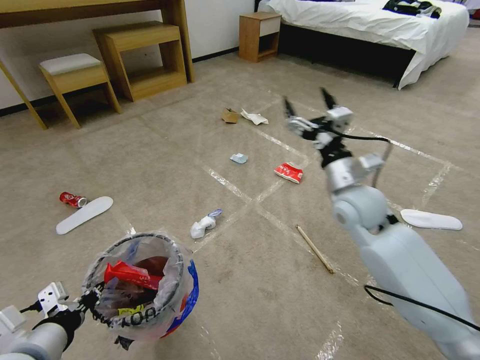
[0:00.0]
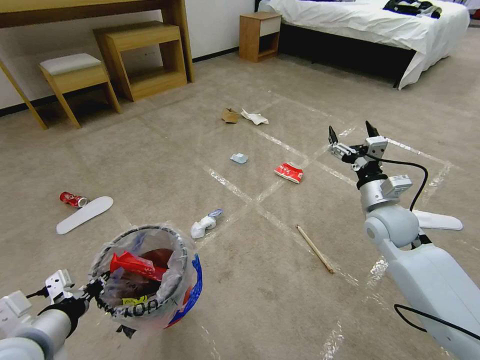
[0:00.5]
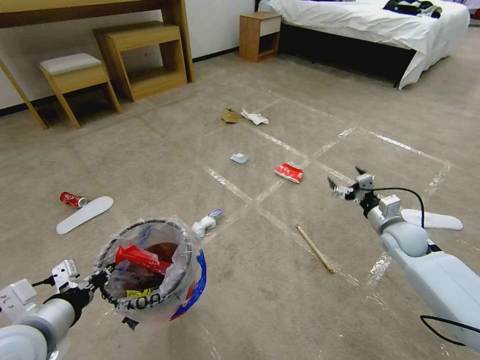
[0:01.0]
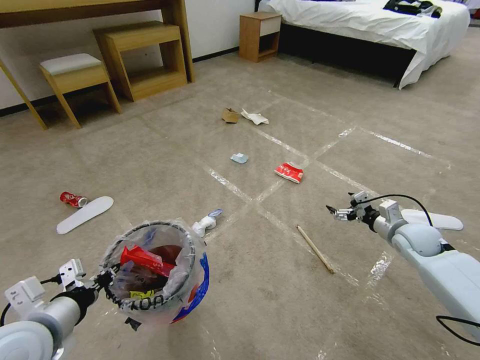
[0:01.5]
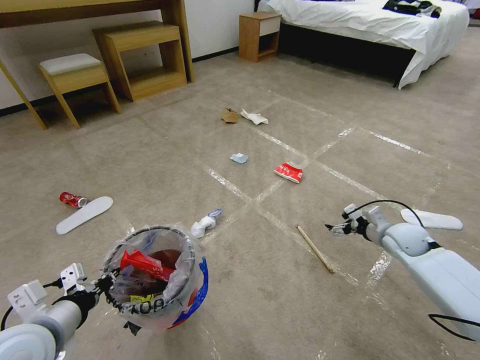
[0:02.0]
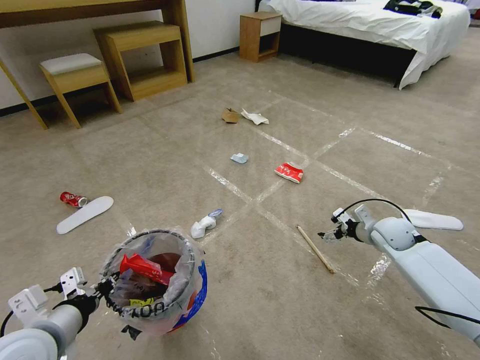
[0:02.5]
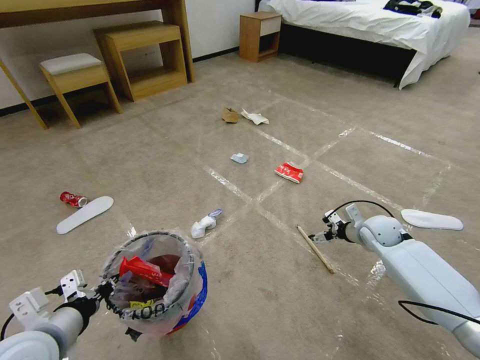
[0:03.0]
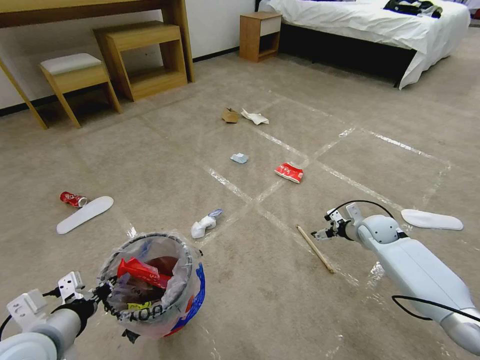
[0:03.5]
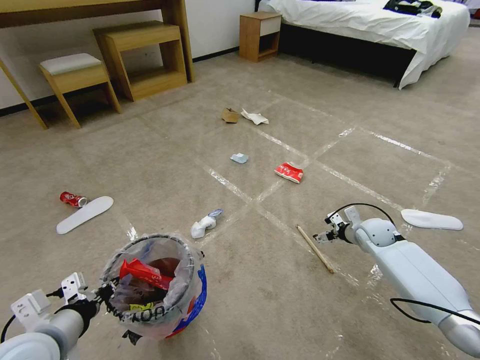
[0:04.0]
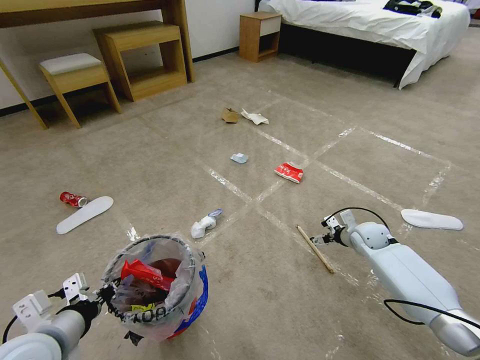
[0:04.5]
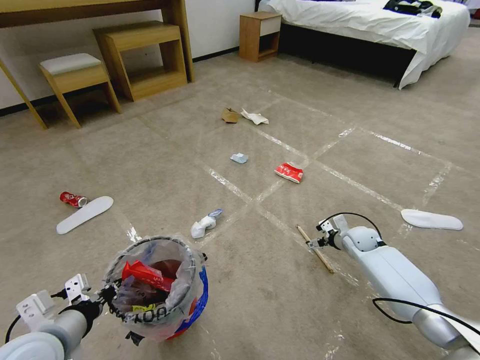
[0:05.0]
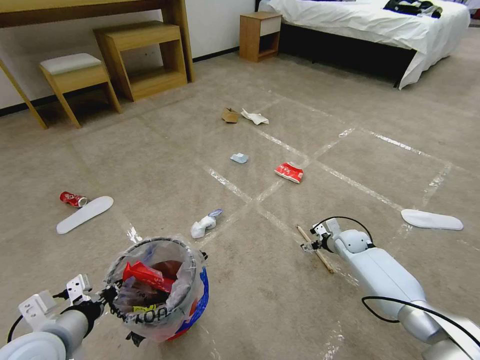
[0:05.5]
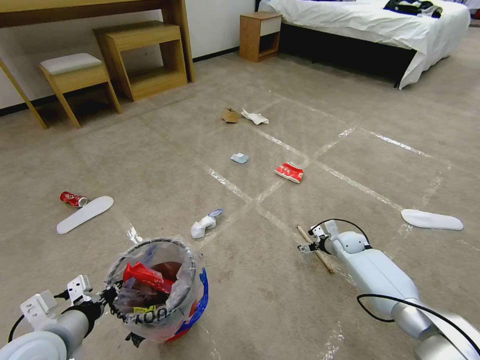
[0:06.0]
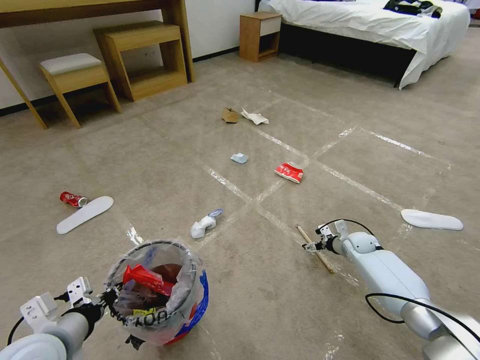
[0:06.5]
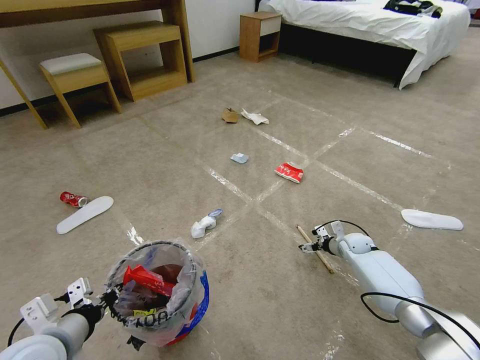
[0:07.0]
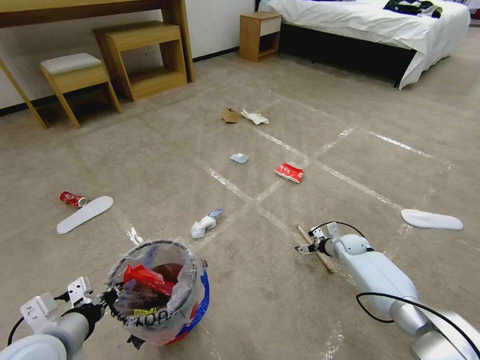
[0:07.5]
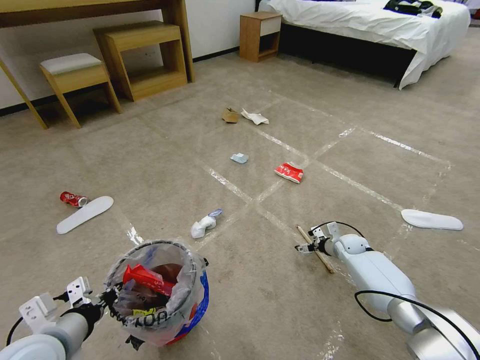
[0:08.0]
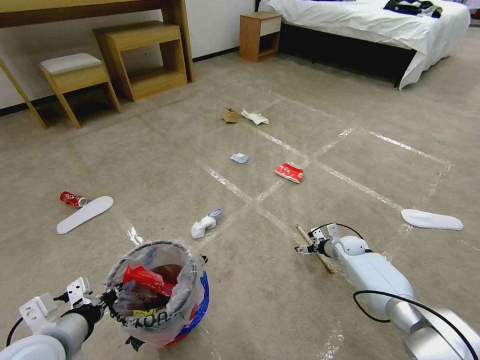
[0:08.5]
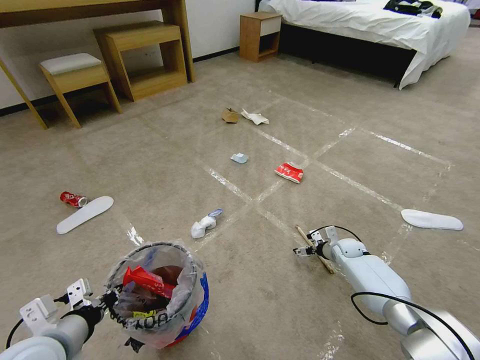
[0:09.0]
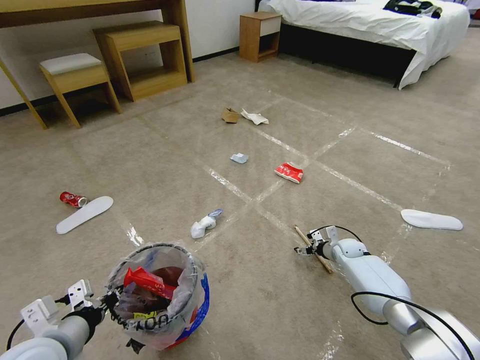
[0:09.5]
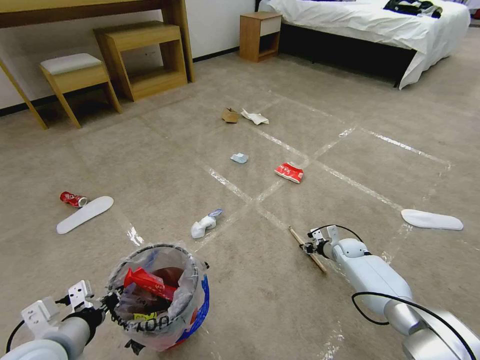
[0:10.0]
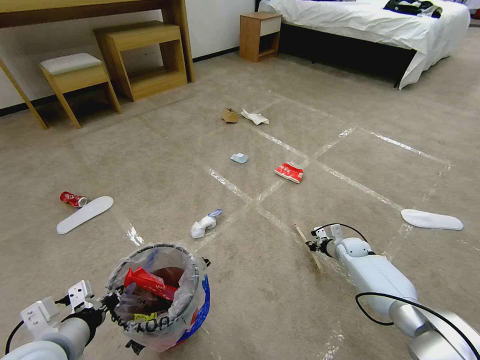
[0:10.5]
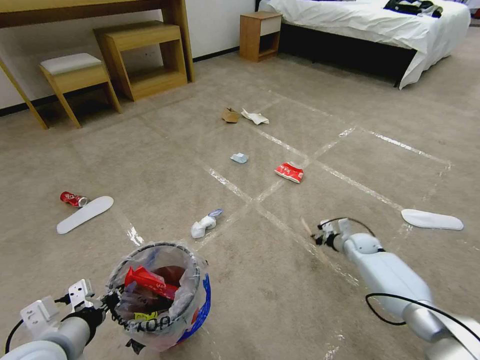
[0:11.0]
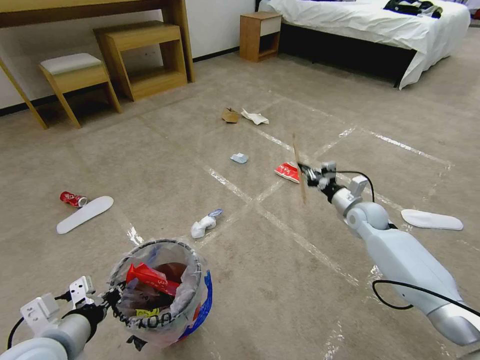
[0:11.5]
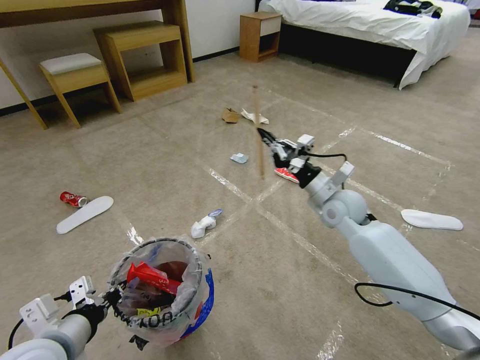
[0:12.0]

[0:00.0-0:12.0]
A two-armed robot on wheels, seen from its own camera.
Task of the whole recording: Pick up the trash bin and place the garbage on the floor into it.
0.0 to 2.0 s: The right gripper shifts approximately 25 cm to the right and downward.
2.0 to 4.0 s: The right gripper changes place by approximately 10 cm.
4.0 to 6.0 s: The right gripper heads downward, covering roughly 10 cm.
6.0 to 8.0 s: The grippers make only small movements.
8.0 to 10.0 s: The right gripper closes its fingers.
10.0 to 12.0 s: The right gripper is displaced upward and to the left by some 30 cm.

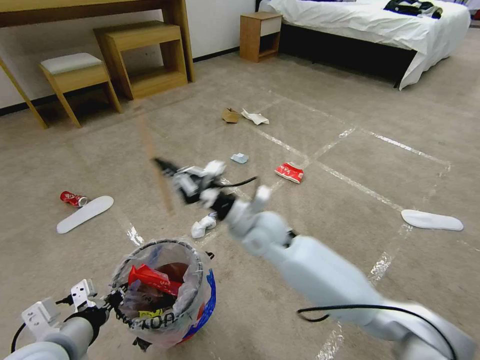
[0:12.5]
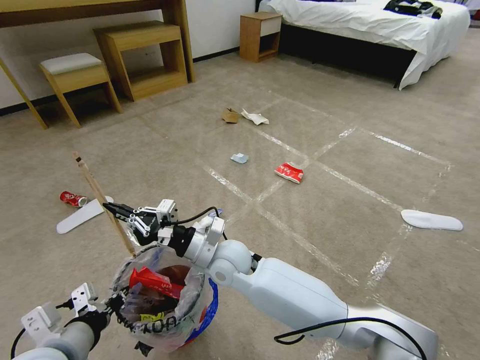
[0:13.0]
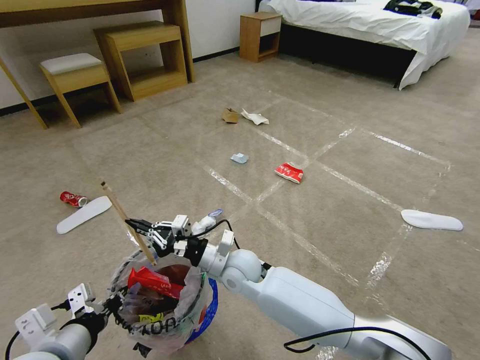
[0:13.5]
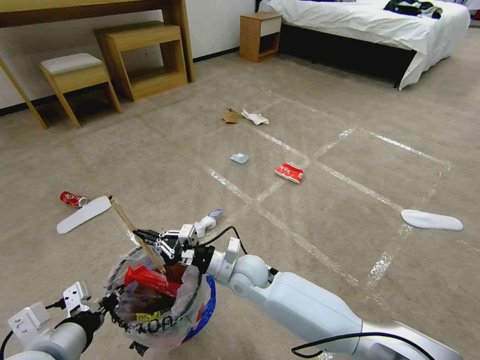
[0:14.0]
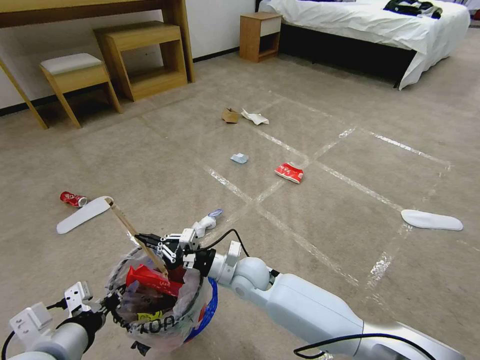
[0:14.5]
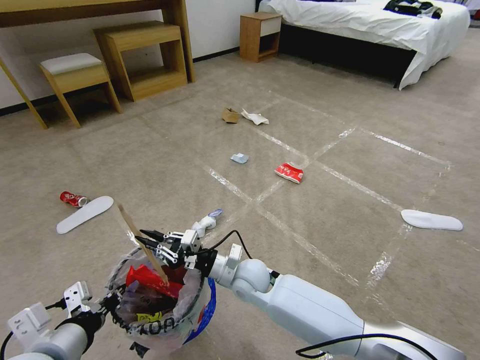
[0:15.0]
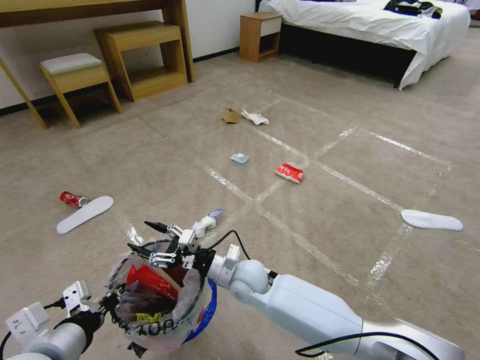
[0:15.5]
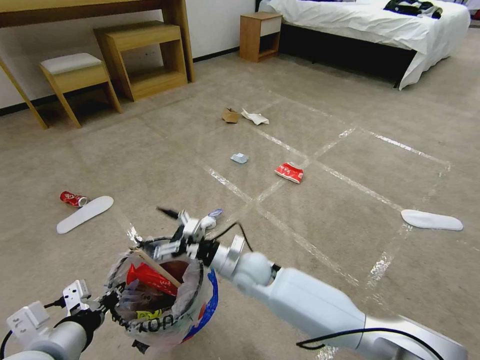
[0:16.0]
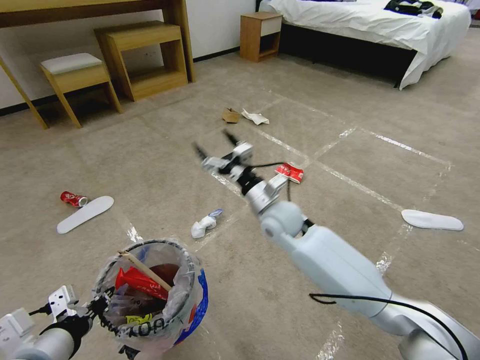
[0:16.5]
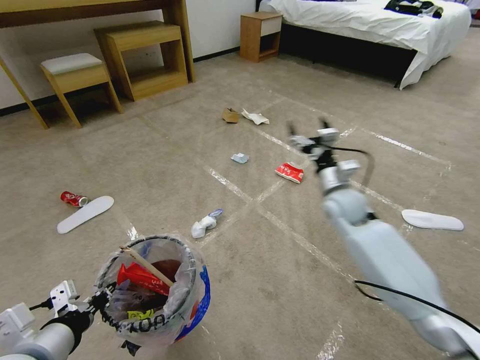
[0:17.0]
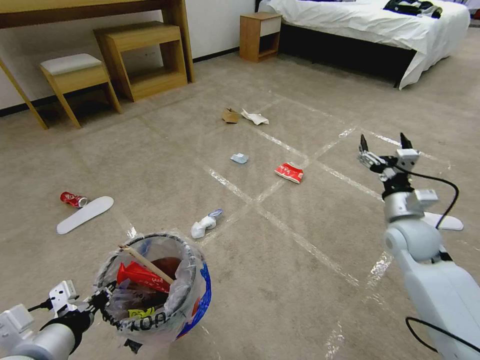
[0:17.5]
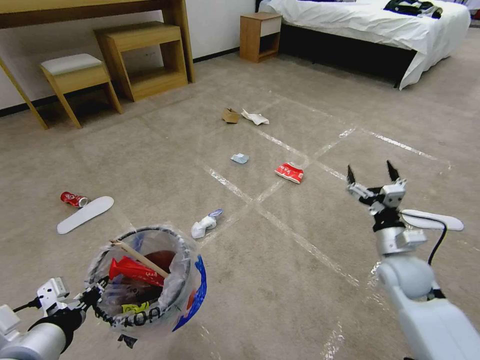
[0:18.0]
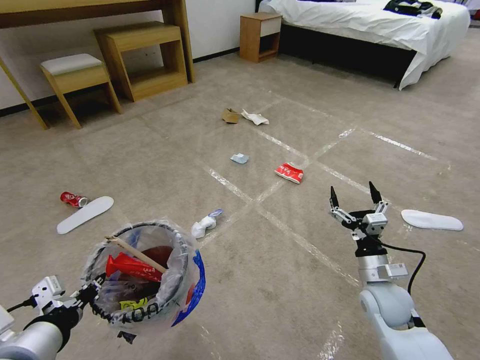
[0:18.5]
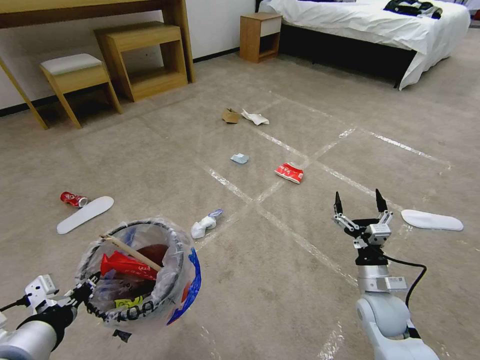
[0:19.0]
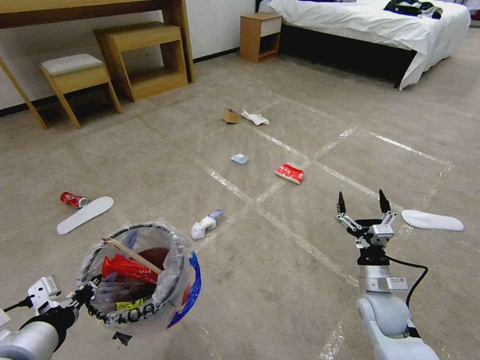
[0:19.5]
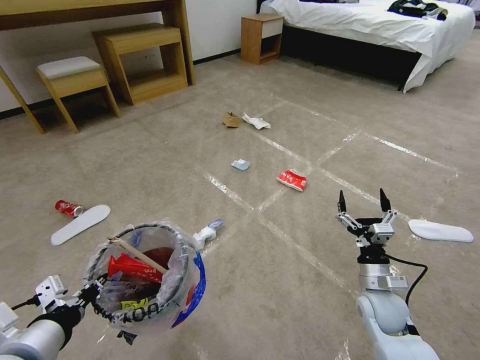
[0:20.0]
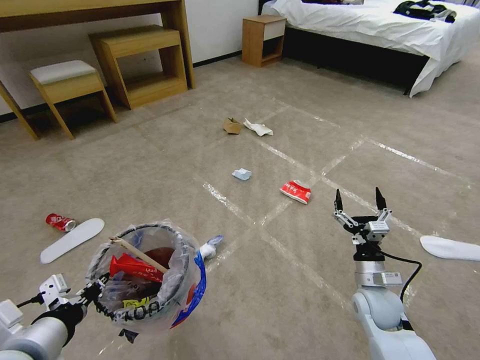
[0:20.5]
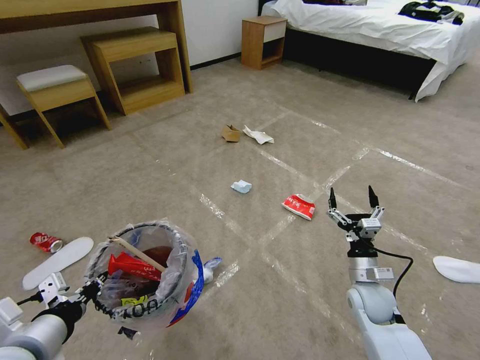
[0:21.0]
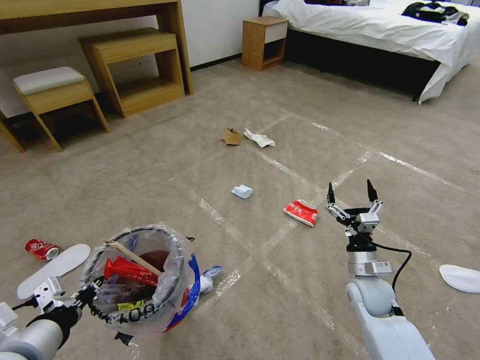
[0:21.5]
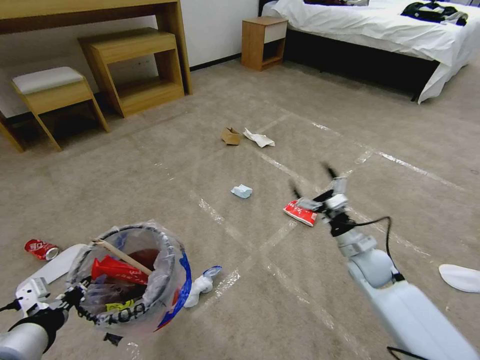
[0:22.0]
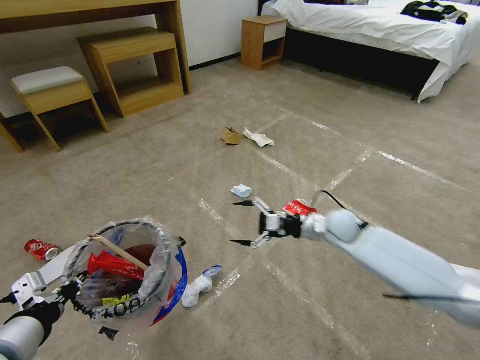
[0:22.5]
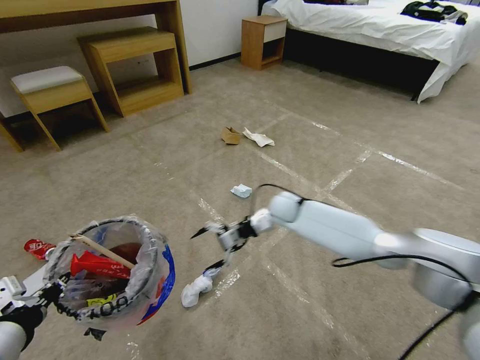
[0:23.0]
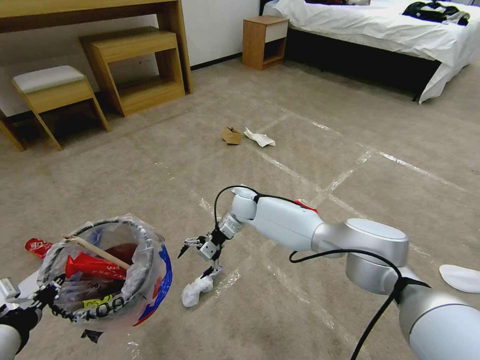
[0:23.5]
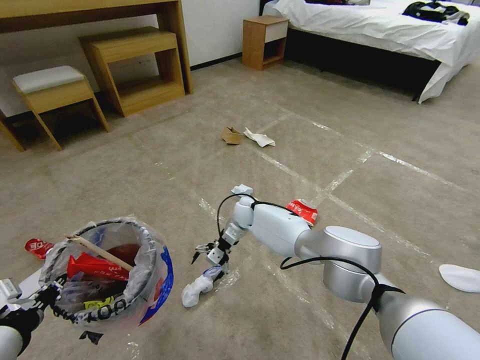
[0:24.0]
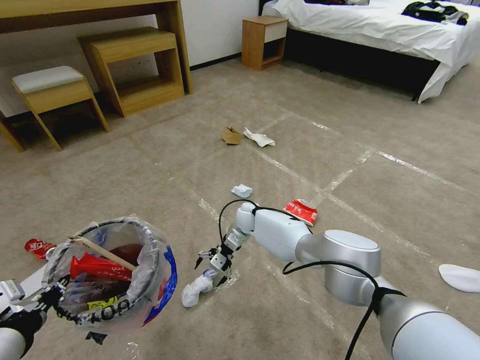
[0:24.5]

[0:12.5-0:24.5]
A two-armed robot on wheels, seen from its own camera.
Task of the whole recording: Pick up the trash bin and place the garbage on the floor into it.
12.5 to 14.5 s: The right gripper moves downward, approximately 10 cm.
14.5 to 16.5 s: The right gripper heads upward, forward and to the right, covering approximately 15 cm, and opens its fingers.
16.5 to 18.5 s: The right gripper shifts some 30 cm to the right, backward and downward.
20.5 to 22.5 s: The right gripper shifts about 15 cm forward and upward.
22.5 to 24.5 s: The right gripper travels to the left and forward by about 25 cm.

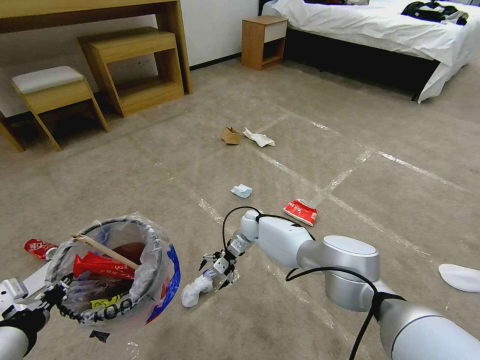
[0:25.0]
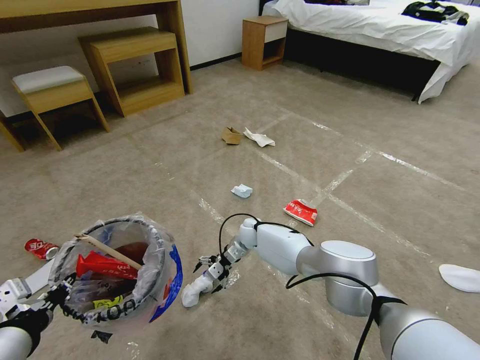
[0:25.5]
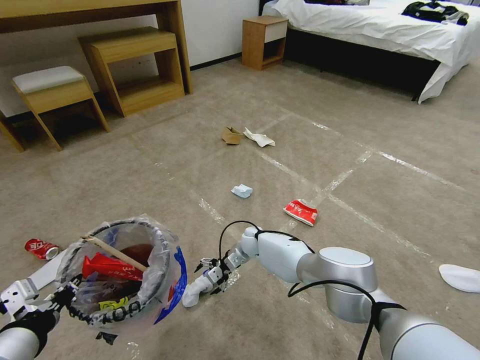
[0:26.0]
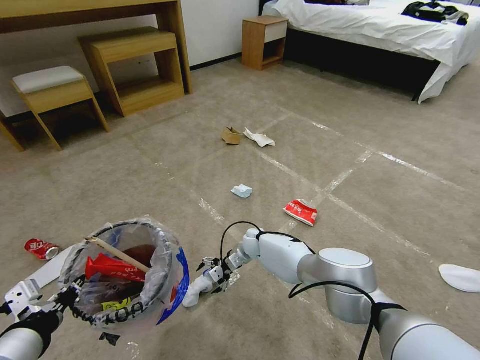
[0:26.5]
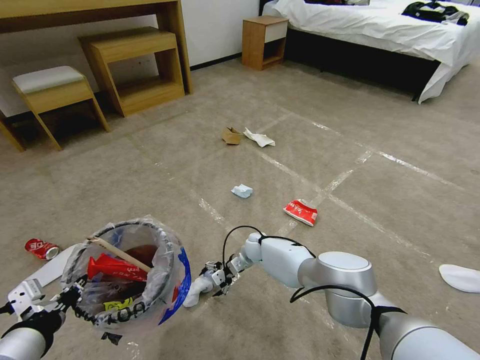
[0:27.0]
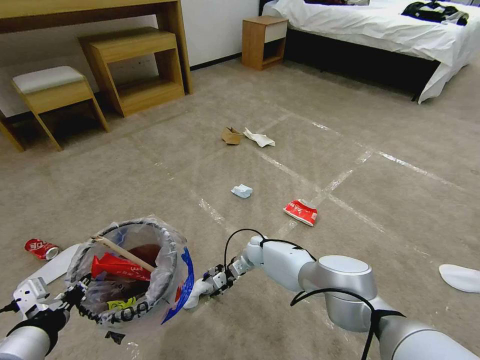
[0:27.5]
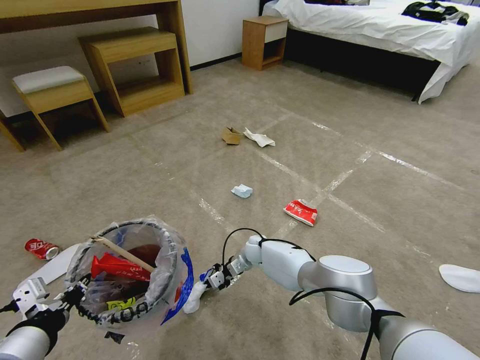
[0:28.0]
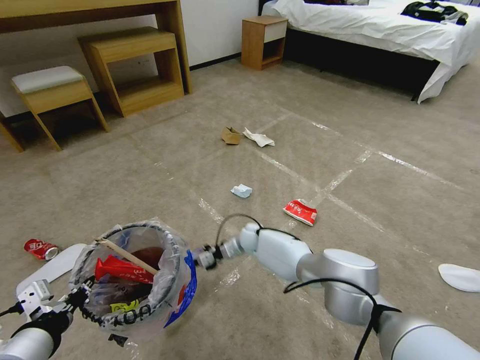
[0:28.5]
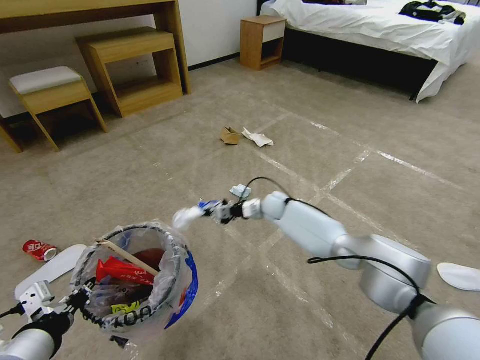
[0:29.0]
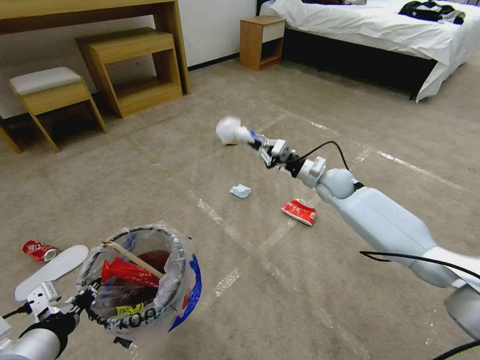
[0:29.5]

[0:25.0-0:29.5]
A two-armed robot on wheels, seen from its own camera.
Task of the whole recording: Pick up the trash bin and place the garbage on the floor into it.
25.0 to 27.0 s: The right gripper is displaced downward by approximately 5 cm.
27.0 to 29.5 s: The right gripper heads upward and to the right, covering roughly 30 cm, and closes its fingers.
